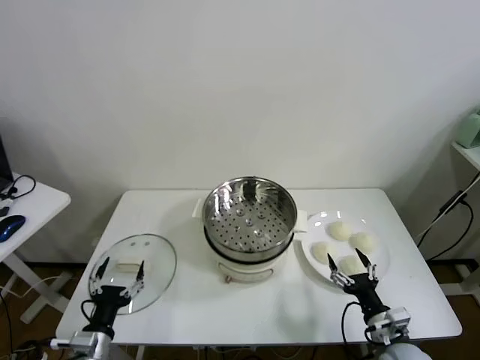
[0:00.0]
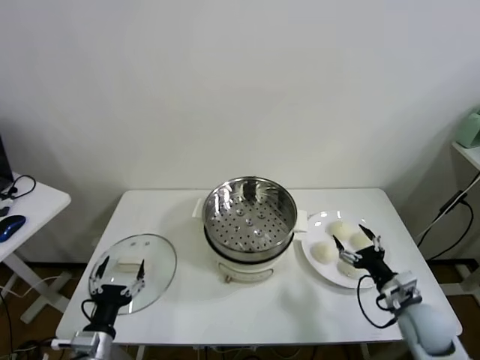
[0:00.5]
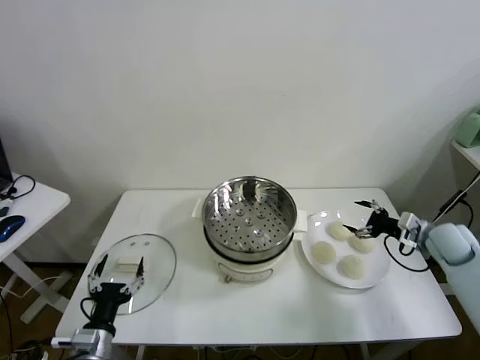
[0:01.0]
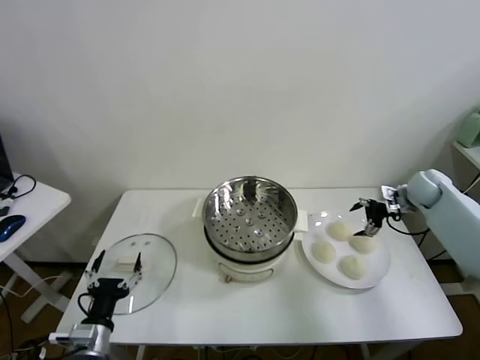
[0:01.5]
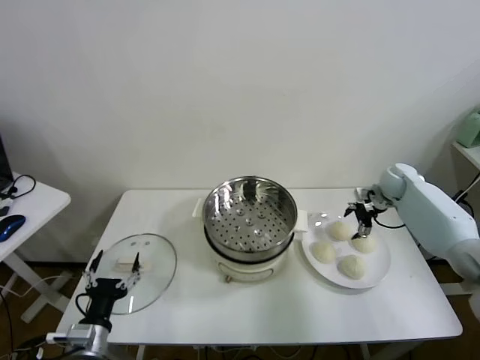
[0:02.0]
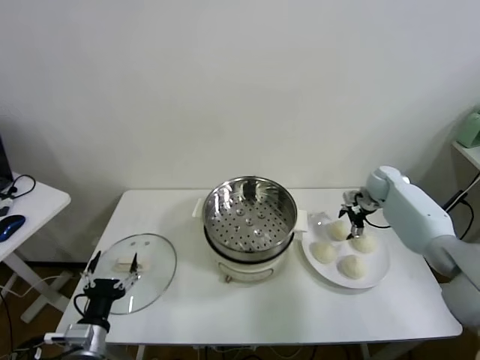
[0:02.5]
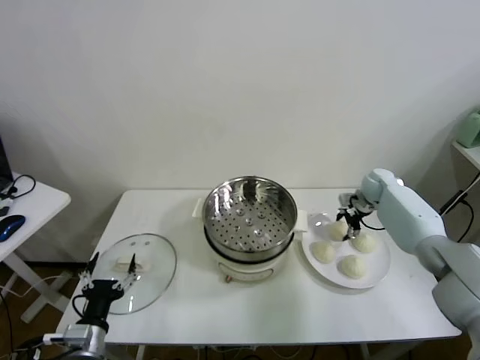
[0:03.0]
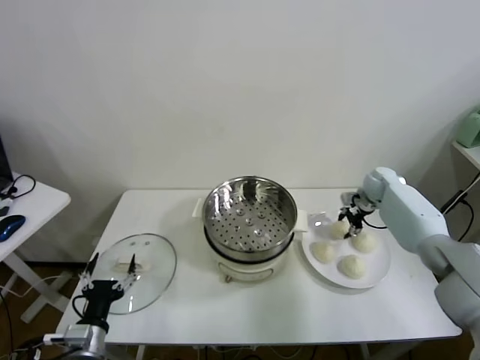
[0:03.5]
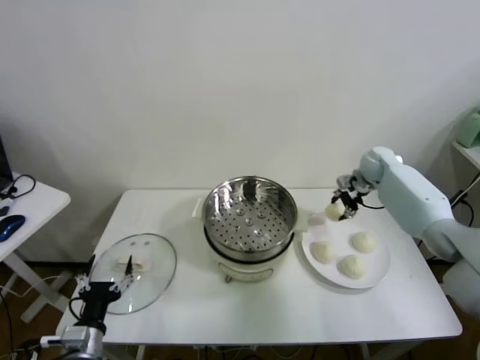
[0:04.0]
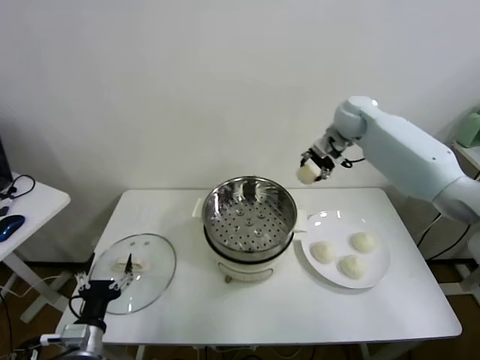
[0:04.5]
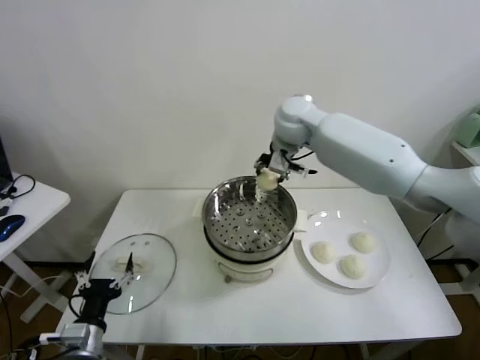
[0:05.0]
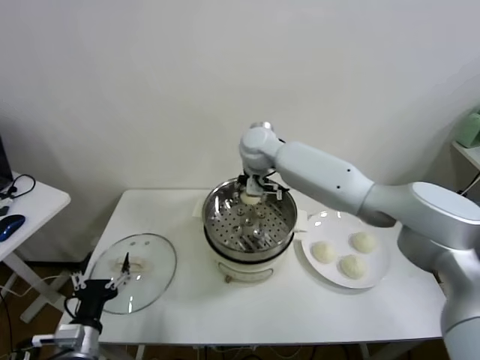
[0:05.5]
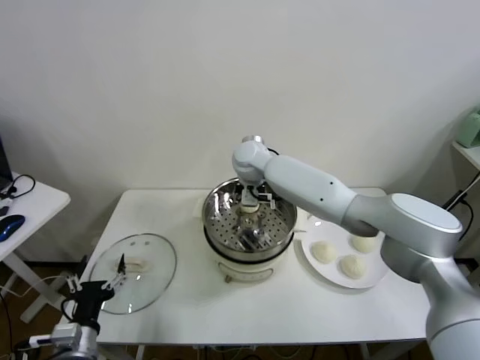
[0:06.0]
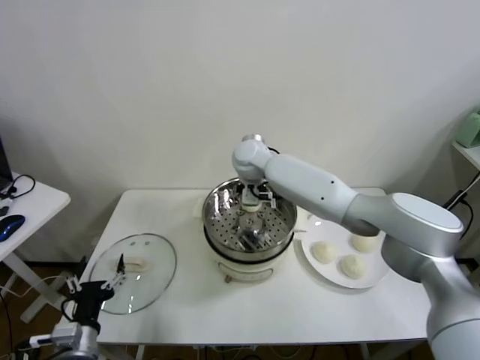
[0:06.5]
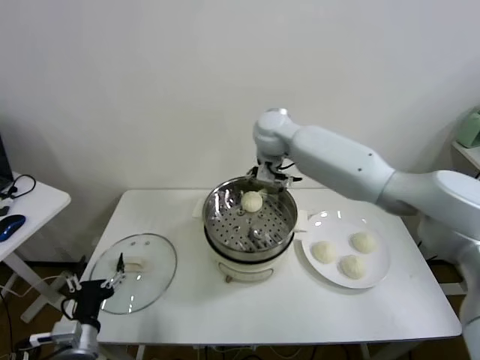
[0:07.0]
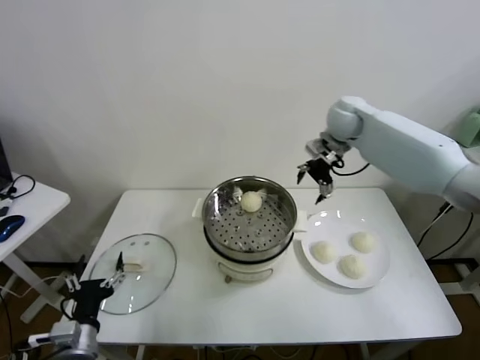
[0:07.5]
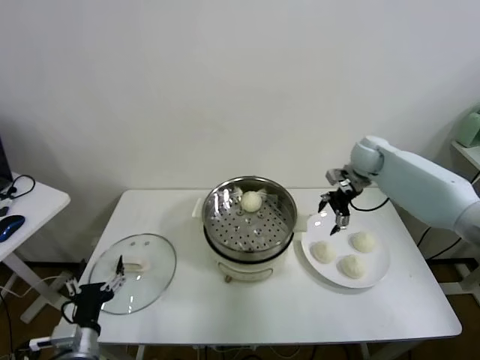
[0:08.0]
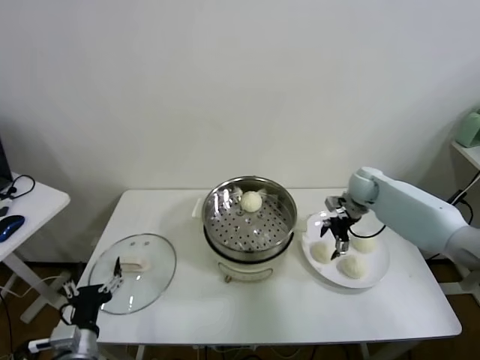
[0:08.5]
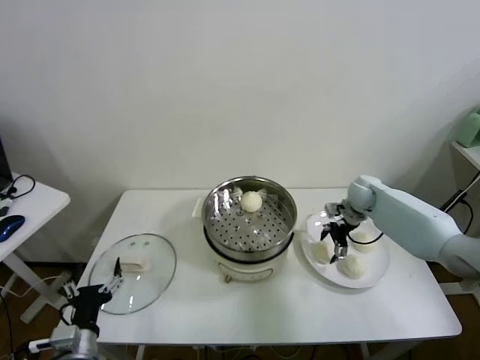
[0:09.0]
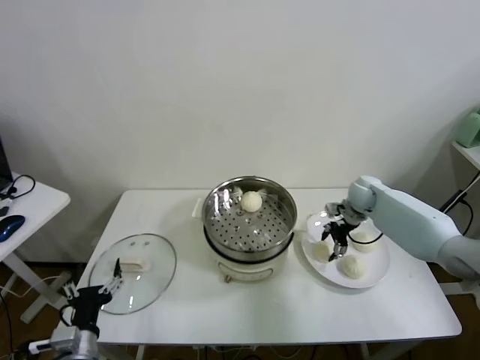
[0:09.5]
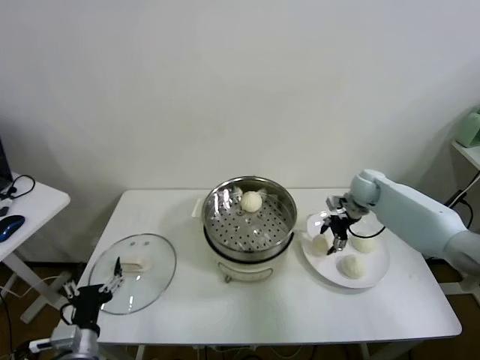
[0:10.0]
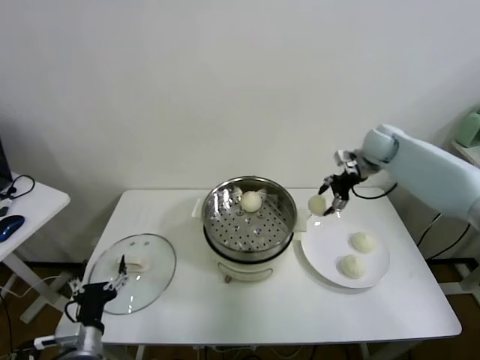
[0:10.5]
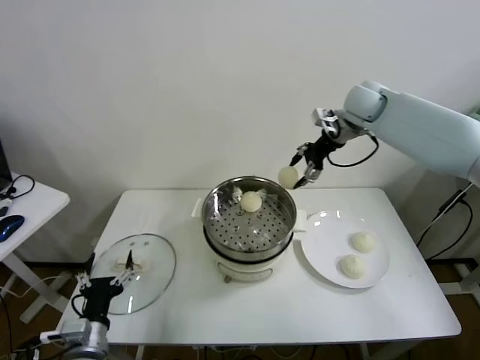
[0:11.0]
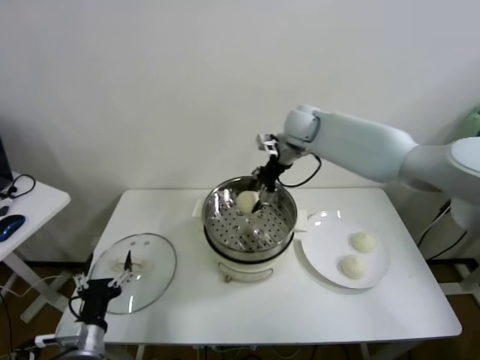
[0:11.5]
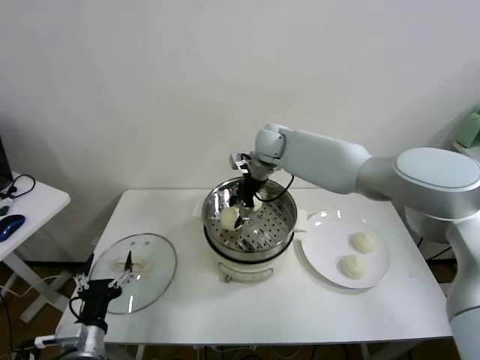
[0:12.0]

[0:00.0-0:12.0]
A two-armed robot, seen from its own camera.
Task of the whole recording: take steamed baozi put them in steamer.
Step, 0.0 to 3.0 s: Grasp the baozi in the plate with right gripper.
Step, 3.5 to 6.5 s: Place the baozi on the steamer with right gripper.
Step, 7.0 to 9.0 s: Grasp the baozi in the plate with right gripper.
2.0 to 4.0 s: The right gripper travels upward and to the left by about 10 cm, and closes up.
4.0 to 6.0 s: The right gripper is displaced to the left by some 35 cm.
6.0 to 8.0 s: The right gripper heads to the right, covering about 30 cm, and opens its fingers.
8.0 to 10.0 s: The right gripper goes roughly 5 cm downward, and closes its fingers.
10.0 to 12.0 s: The right gripper travels to the left and upward by approximately 30 cm.

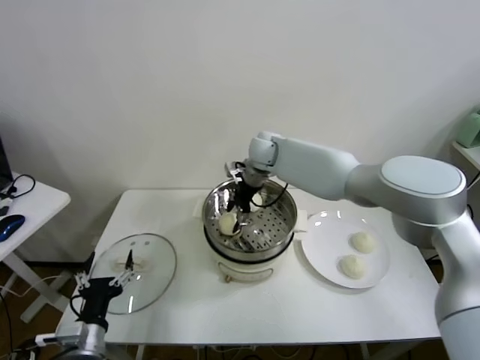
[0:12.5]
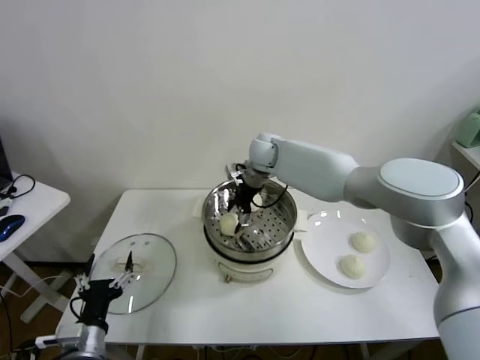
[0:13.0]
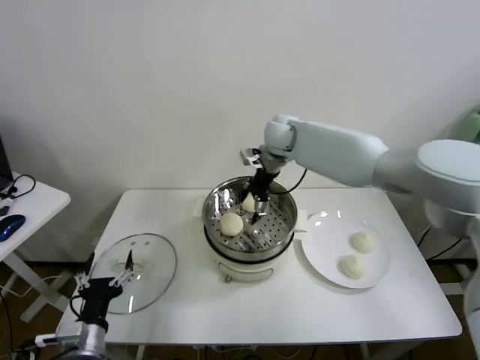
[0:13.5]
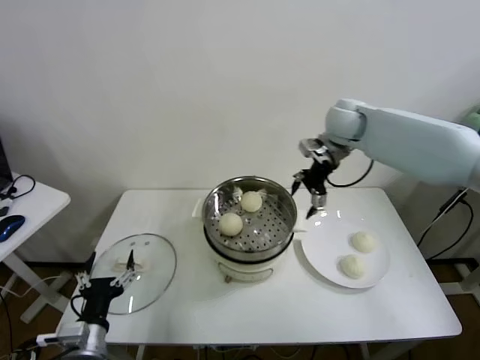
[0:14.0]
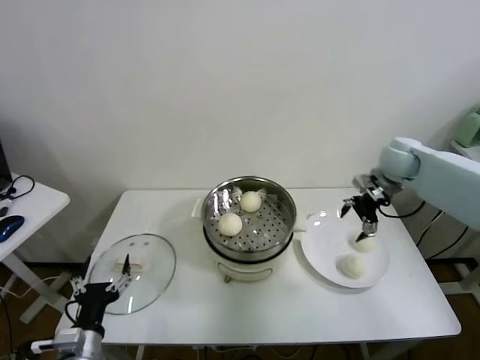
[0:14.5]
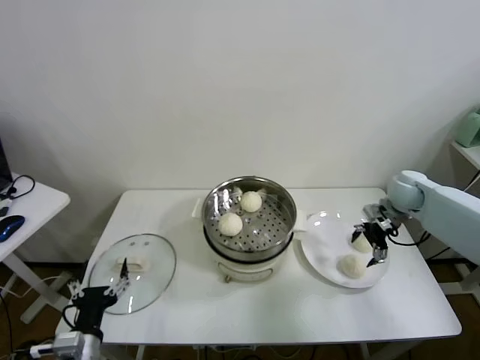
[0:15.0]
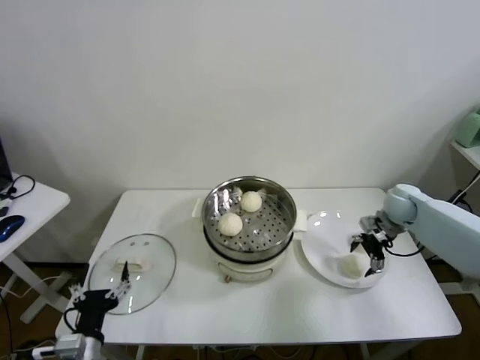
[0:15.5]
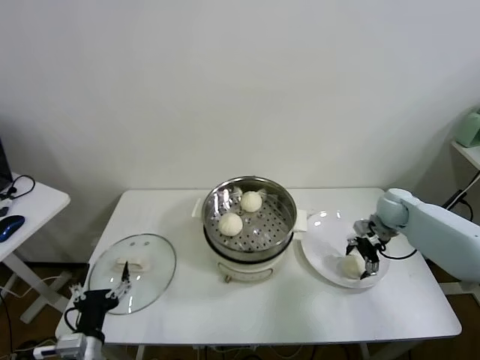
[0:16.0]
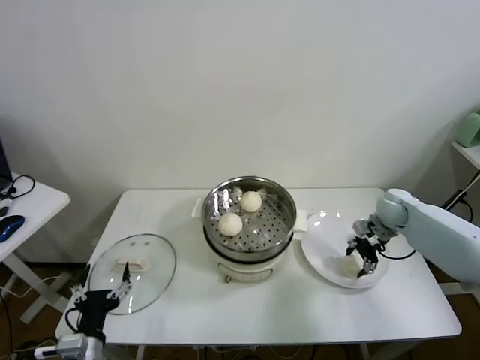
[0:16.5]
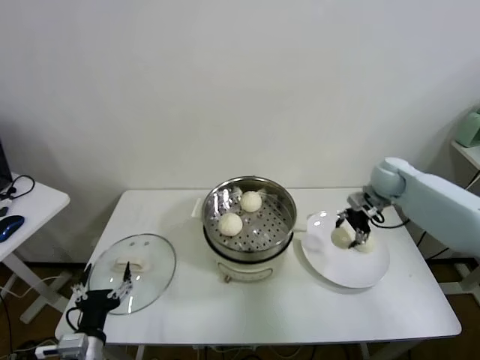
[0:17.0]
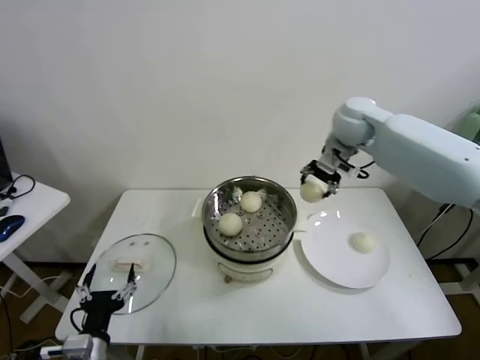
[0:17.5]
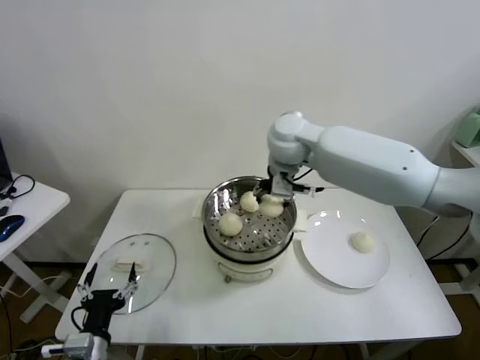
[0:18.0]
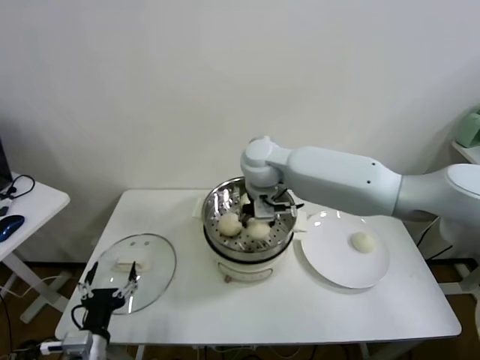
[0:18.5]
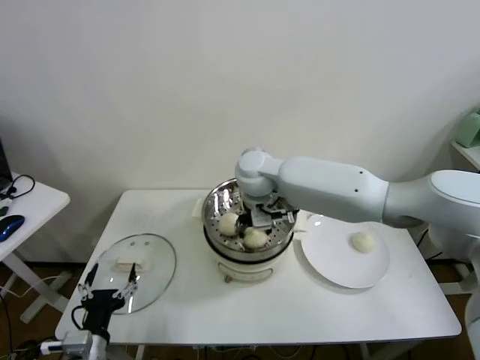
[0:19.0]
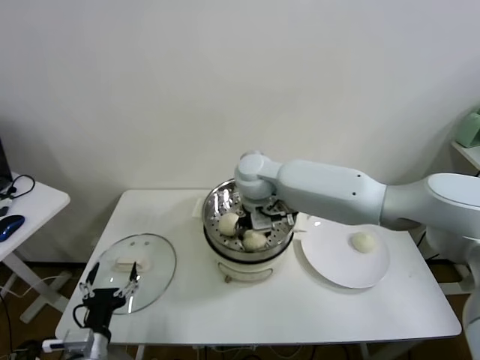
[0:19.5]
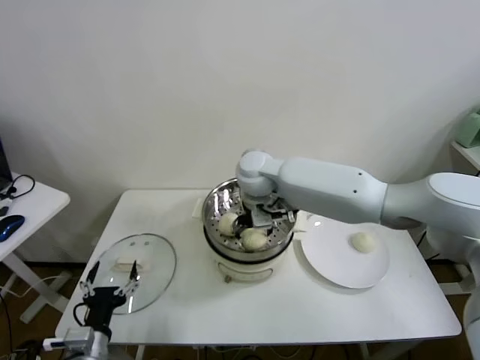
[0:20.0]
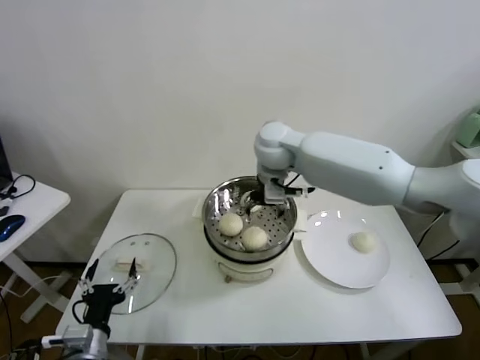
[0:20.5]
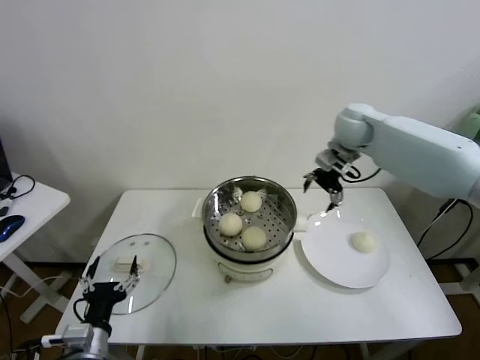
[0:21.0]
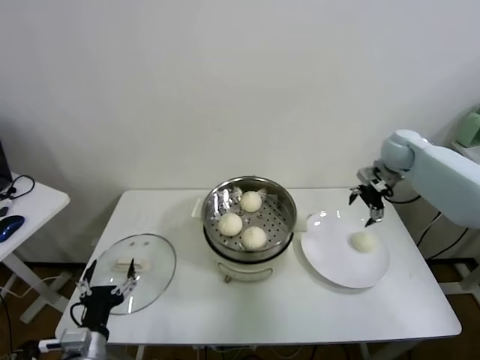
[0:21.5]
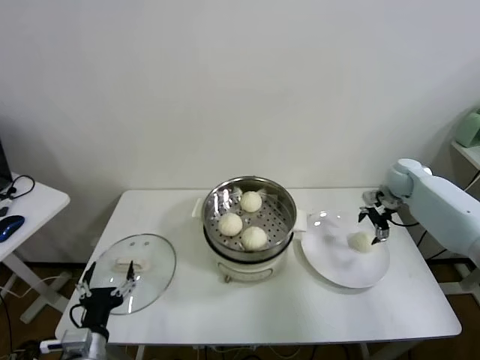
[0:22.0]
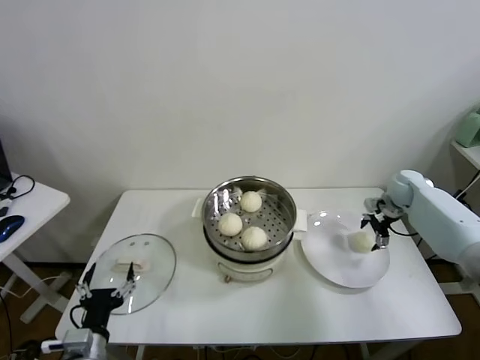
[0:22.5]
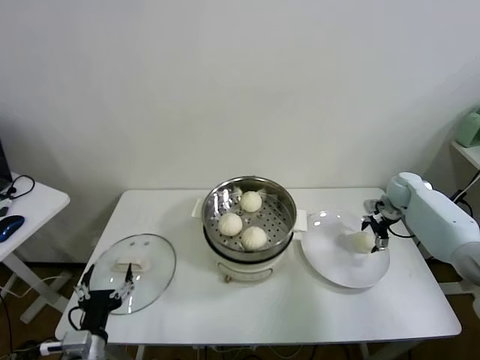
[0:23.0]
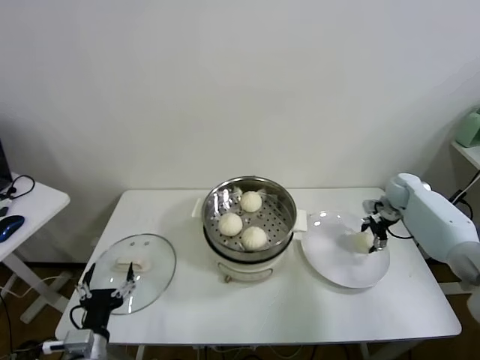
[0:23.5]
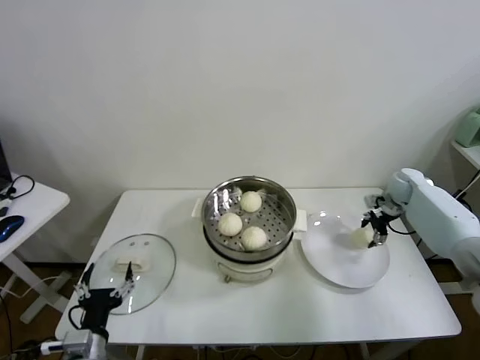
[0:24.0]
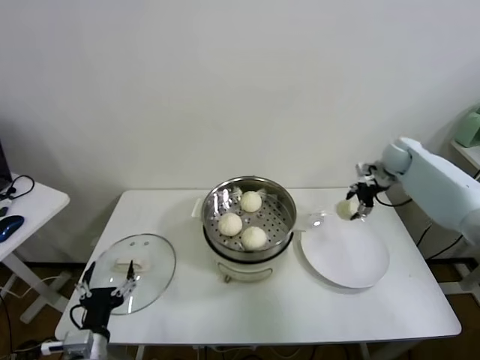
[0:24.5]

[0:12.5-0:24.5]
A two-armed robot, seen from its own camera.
Task of the whole recording: take steamed baozi put them in steamer.
Step, 13.5 to 16.0 s: Grasp the baozi in the plate with right gripper.
Step, 16.5 to 20.0 s: Place the baozi on the steamer with right gripper.
Step, 20.5 to 23.5 s: Grasp the baozi in the plate with right gripper.
12.5 to 14.5 s: The right gripper goes some 30 cm to the right, and opens.
14.5 to 16.5 s: The right gripper moves downward, about 15 cm, and closes its fingers.
16.5 to 18.5 s: The right gripper moves to the left and upward, some 40 cm.
18.5 to 20.5 s: The right gripper shifts by about 5 cm, and opens up.
20.5 to 22.5 s: The right gripper shifts some 40 cm to the right and downward.
22.5 to 24.5 s: The right gripper moves upward, about 10 cm, and closes.

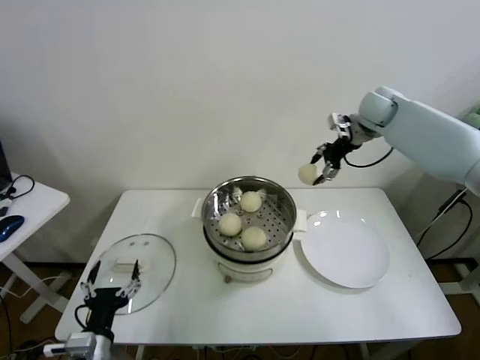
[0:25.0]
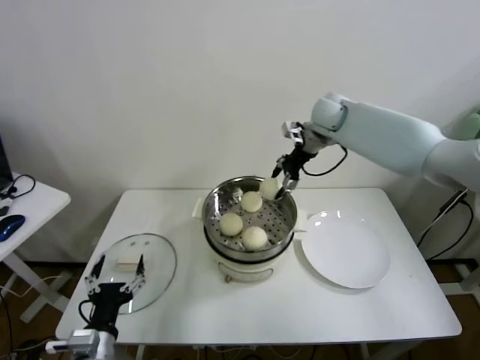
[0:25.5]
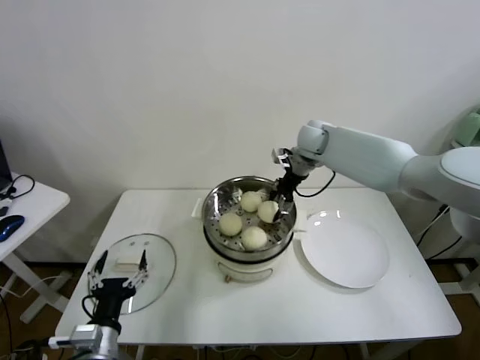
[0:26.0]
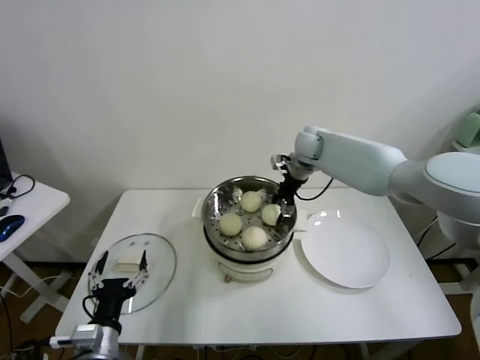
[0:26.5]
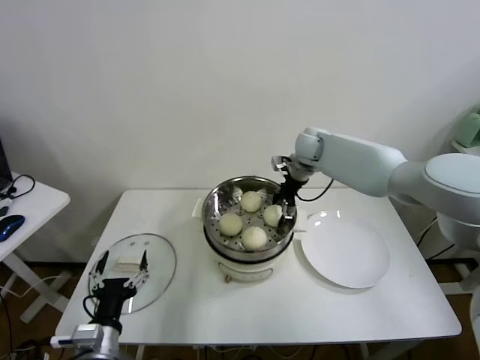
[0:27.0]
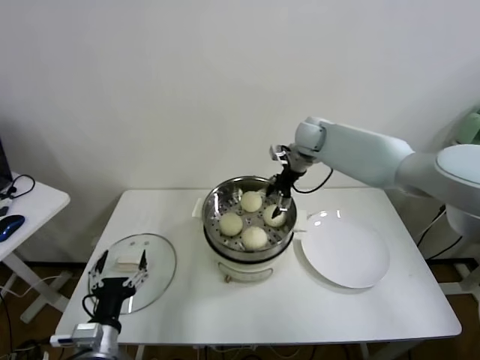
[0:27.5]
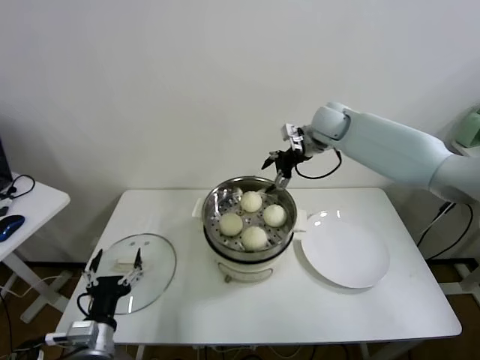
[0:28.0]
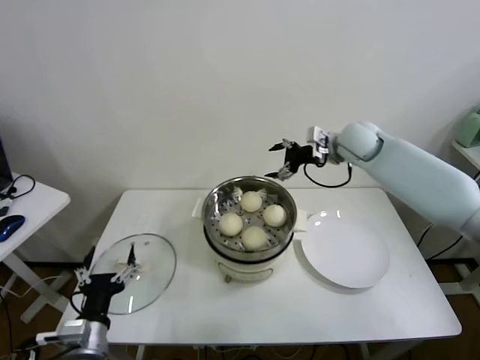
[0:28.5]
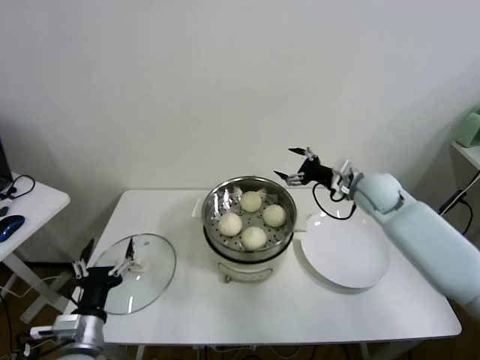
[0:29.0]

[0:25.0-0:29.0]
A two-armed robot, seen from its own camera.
Task of the whole recording: take steamed baozi put them in steamer.
Step, 25.0 to 27.0 s: Place the baozi on the steamer with right gripper.
25.0 to 27.0 s: The right gripper travels to the left and downward by roughly 20 cm.
27.0 to 29.0 s: The right gripper travels to the right and backward by approximately 20 cm, and opens.
